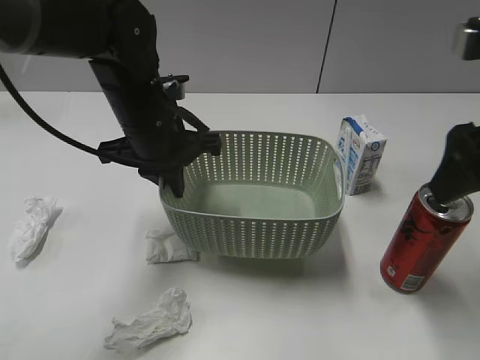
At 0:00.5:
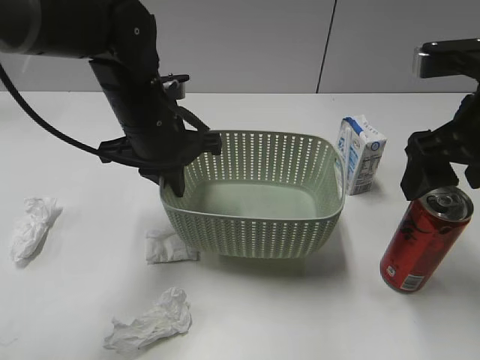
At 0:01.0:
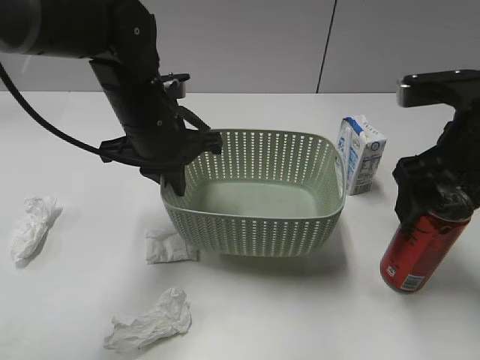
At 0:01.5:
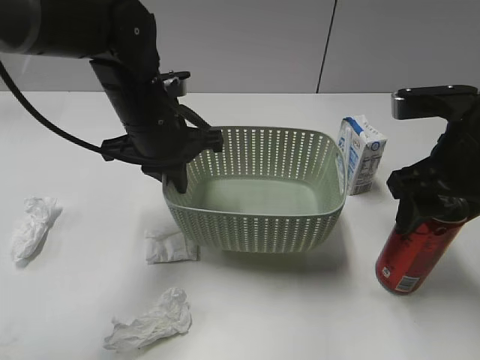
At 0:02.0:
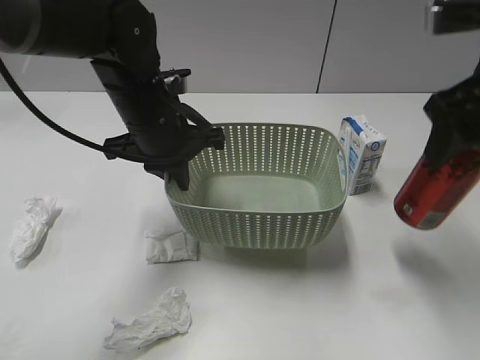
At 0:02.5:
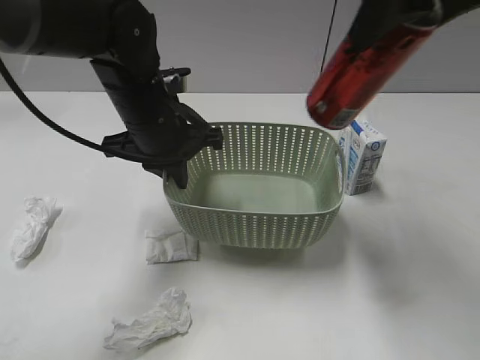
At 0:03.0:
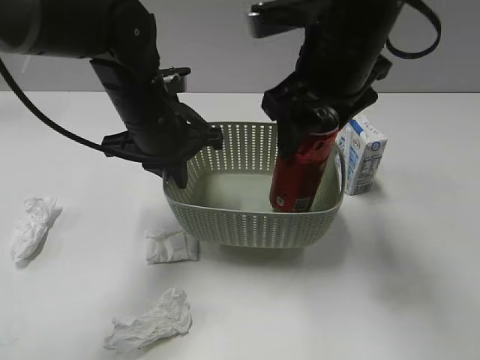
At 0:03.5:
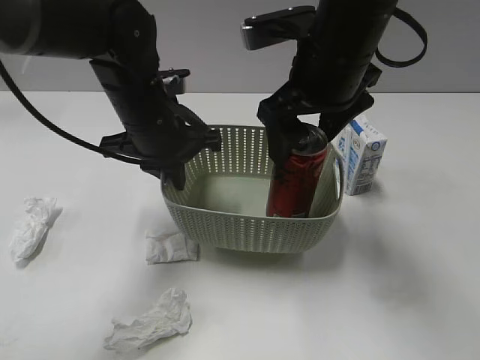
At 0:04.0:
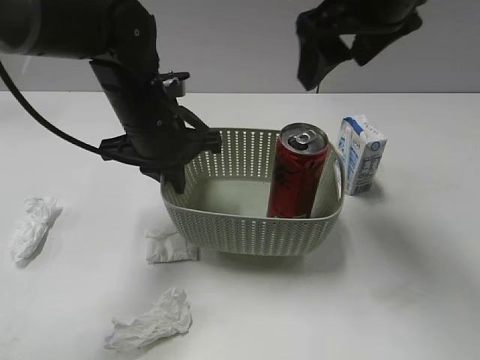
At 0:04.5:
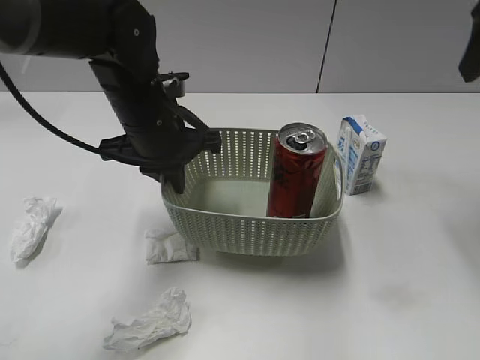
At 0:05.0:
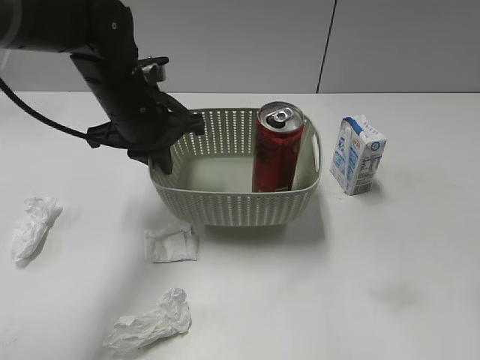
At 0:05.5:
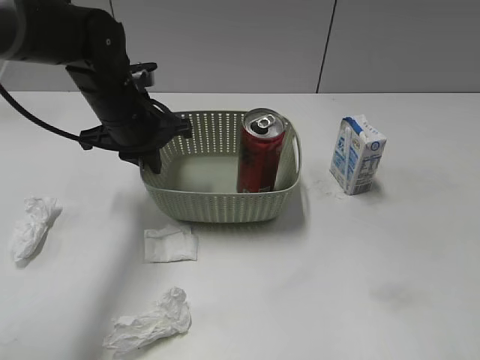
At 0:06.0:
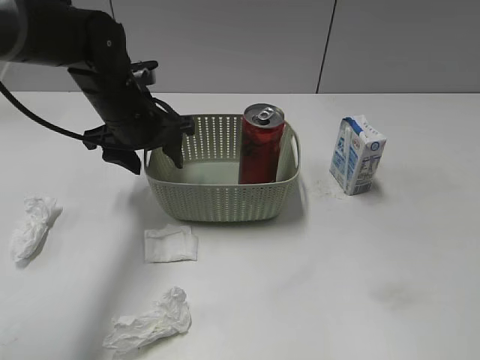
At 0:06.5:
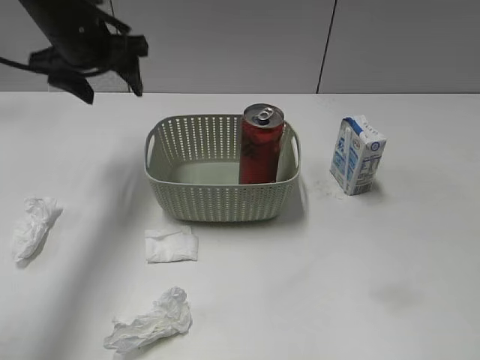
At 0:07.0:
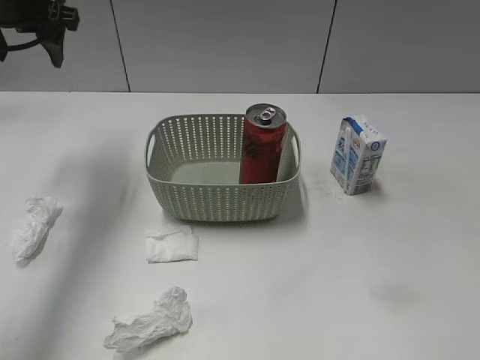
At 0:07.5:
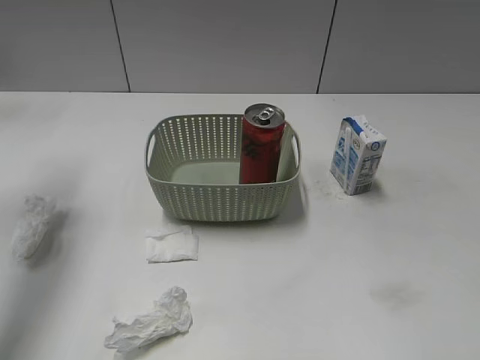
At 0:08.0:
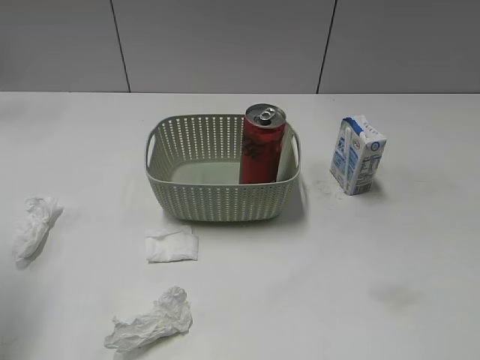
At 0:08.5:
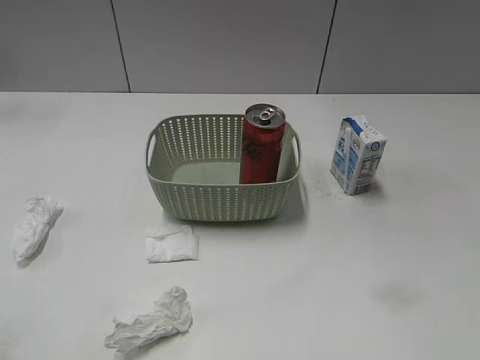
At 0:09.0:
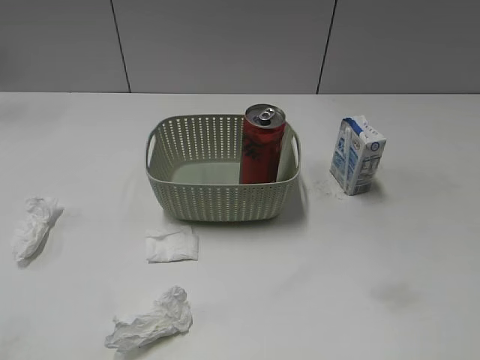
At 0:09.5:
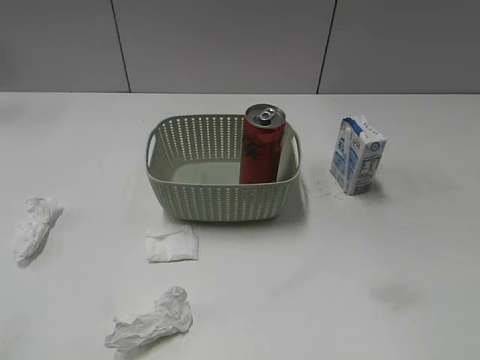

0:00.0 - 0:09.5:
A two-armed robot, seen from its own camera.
Step, 0:00.0 - 0:01.5: Grasp the cola can with right gripper.
Step, 0:02.0 - 0:03.5: Place the cola can in the basket with right gripper.
0:00.0 - 0:02.0: The right gripper goes downward and returns, roughly 5 cm each way, and closes its fingers.
0:02.0 - 0:04.0: The right gripper goes approximately 10 cm to the left and forward, and opens its fingers.
0:04.0 - 0:05.5: The left gripper shifts by roughly 5 cm; the right gripper shifts roughly 30 cm backward and to the right, and closes.
0:05.5 - 0:07.5: The left gripper moves to the left and upward, approximately 20 cm, and opens. Meanwhile the right gripper heads backward, covering some 5 cm.
0:07.5 - 0:09.5: The left gripper travels backward by approximately 35 cm.

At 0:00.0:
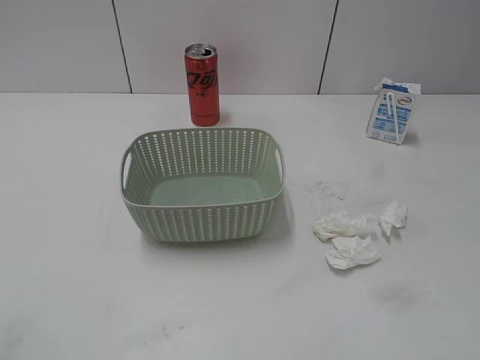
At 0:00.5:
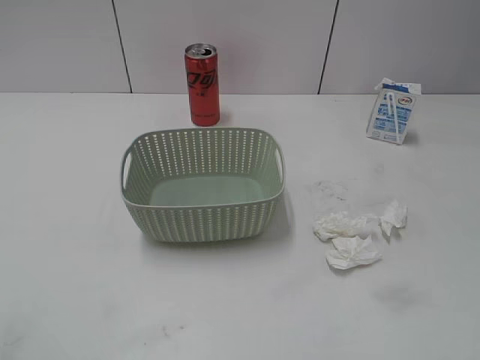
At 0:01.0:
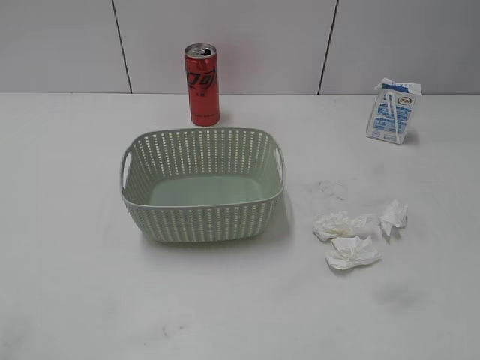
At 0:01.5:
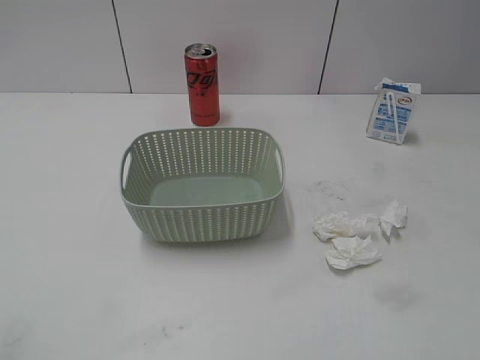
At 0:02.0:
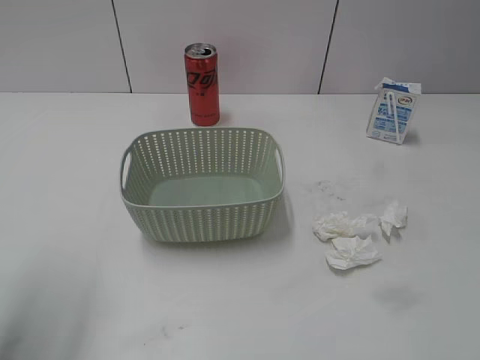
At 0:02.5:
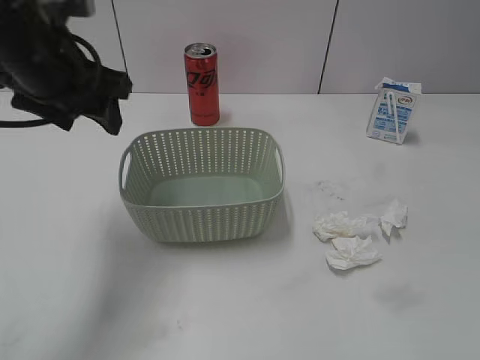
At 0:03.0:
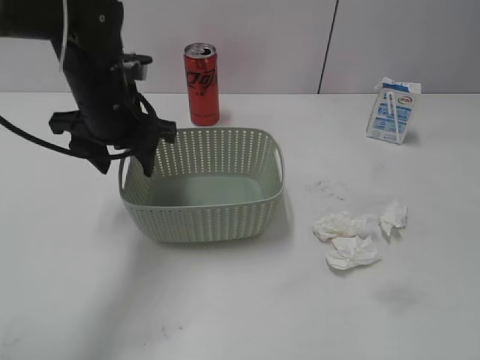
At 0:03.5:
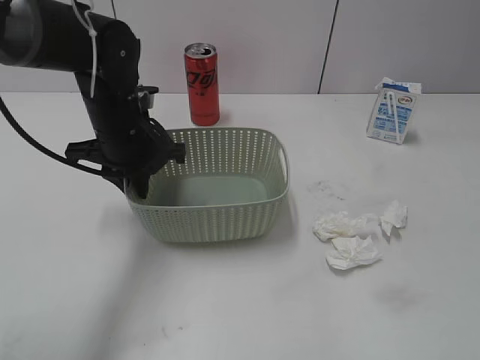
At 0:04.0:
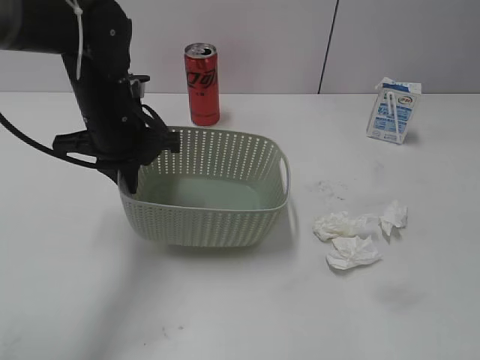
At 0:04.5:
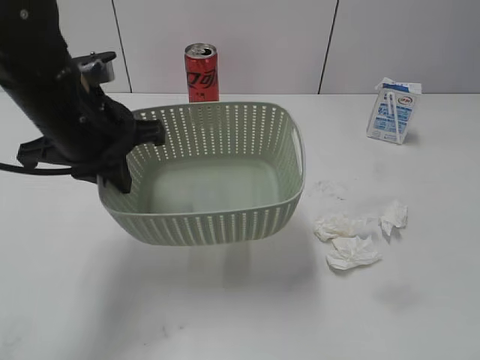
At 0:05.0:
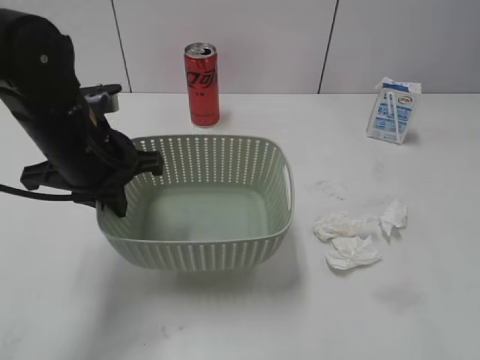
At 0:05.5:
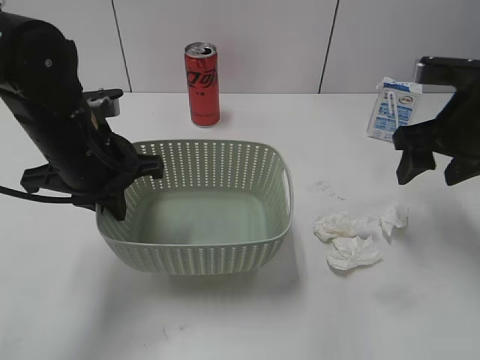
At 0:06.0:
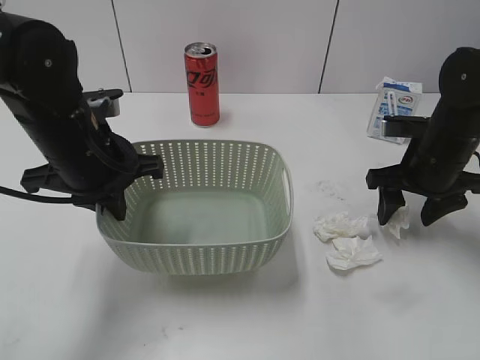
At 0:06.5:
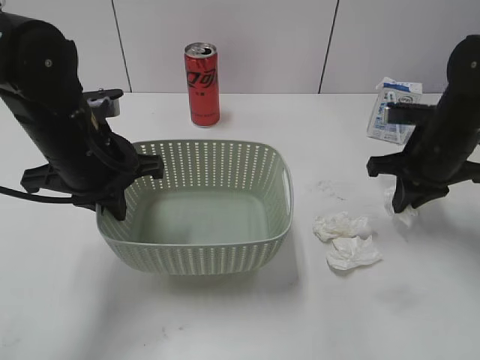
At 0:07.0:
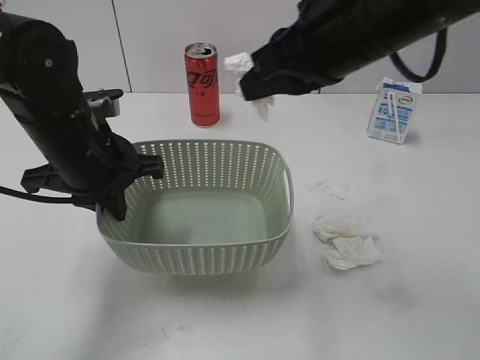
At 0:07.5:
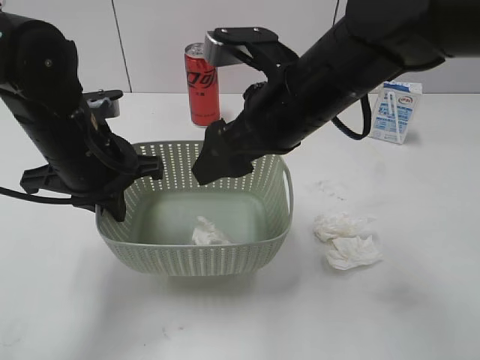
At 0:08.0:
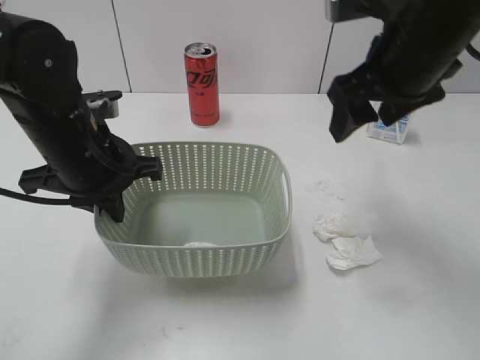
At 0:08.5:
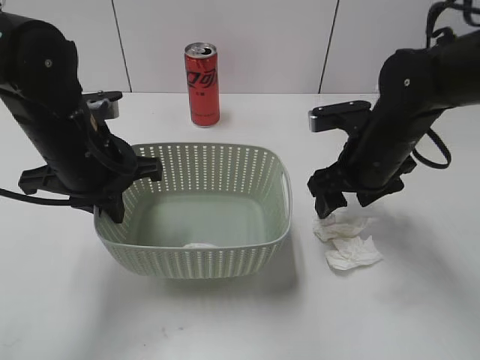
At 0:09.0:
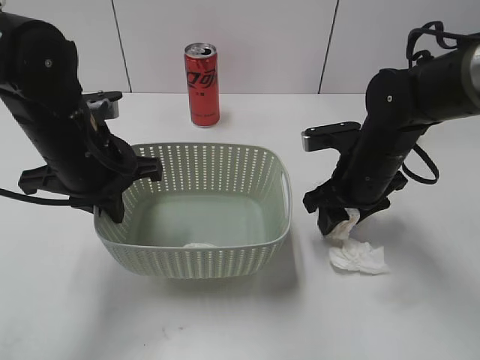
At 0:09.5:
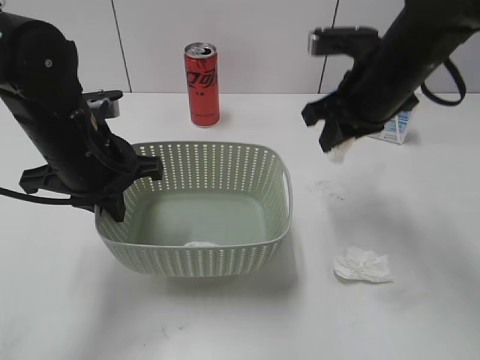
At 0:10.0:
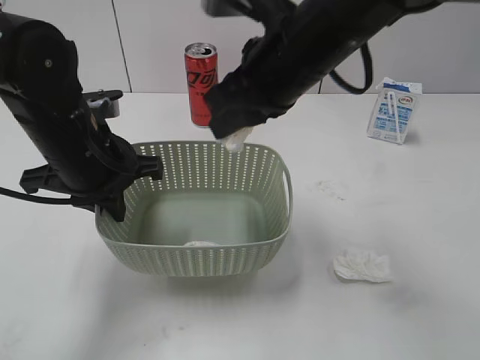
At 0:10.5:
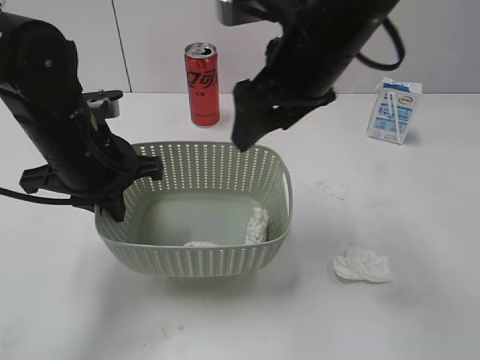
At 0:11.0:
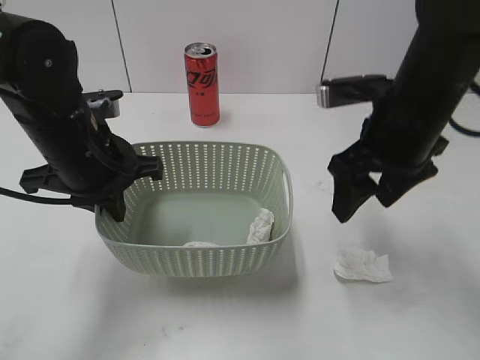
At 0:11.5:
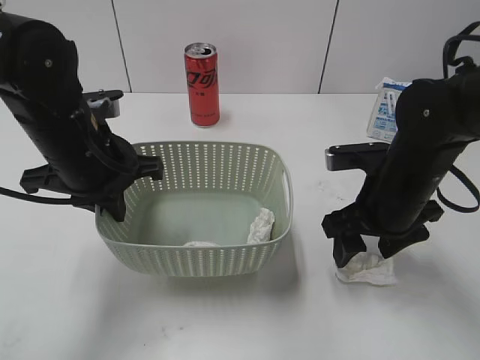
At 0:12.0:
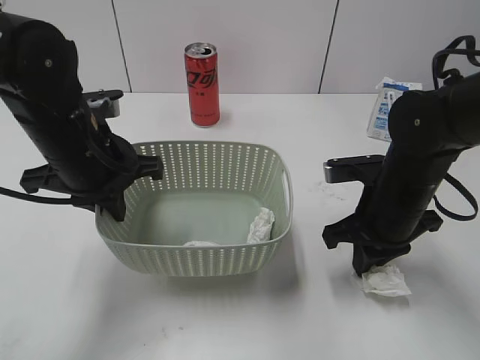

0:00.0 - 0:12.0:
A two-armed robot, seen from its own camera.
Step, 0:02.5 - 0:04.0: Grasp the basket with left gripper.
Step, 0:05.0 - 0:06.5: Grasp the waste paper with right gripper.
Step, 0:07.0 - 0:07.5: Place the waste paper in the basket with right gripper.
Step, 0:08.0 - 0:09.0: Grasp the waste paper with right gripper.
Step, 0:09.5 - 0:10.0: Place the waste paper in the basket with right gripper.
0:02.0 - 0:04.0: The left gripper moves forward, to the right and downward, some 25 cm, and closes its fingers.
0:04.0 - 0:06.0: The right gripper goes roughly 40 cm forward and downward. Meanwhile the left gripper shifts about 5 cm backward.
0:06.0 - 0:08.0: The right gripper shifts about 20 cm upward and to the left, and closes, then opens again.
0:08.0 - 0:10.0: The right gripper is displaced to the left by about 10 cm, travels downward and back again, roughly 15 cm each way, and closes up.
0:10.0 - 0:12.0: The right gripper is displaced downward and to the right by roughly 20 cm, and opens and closes again.

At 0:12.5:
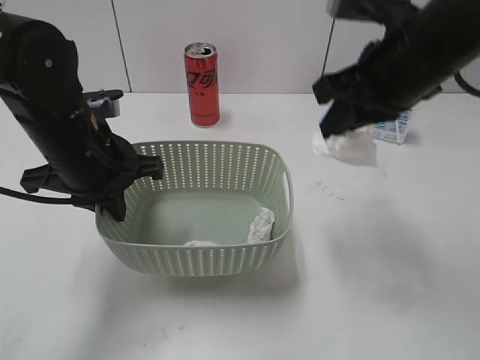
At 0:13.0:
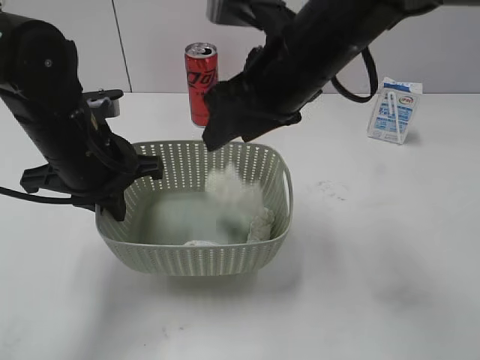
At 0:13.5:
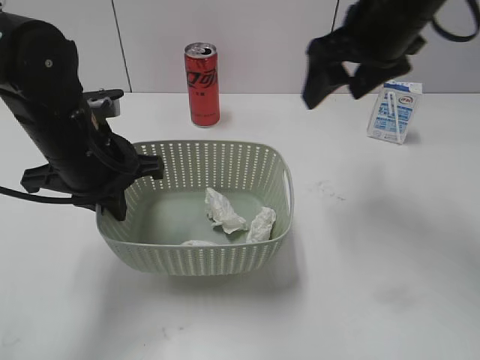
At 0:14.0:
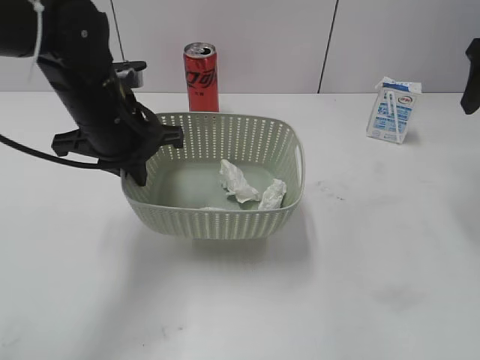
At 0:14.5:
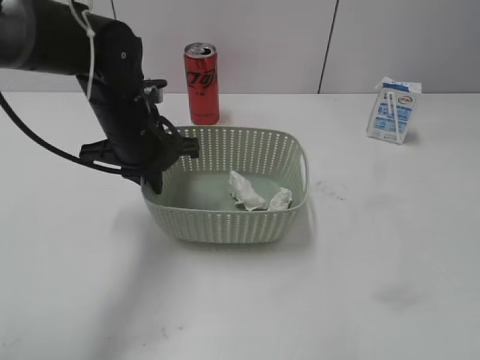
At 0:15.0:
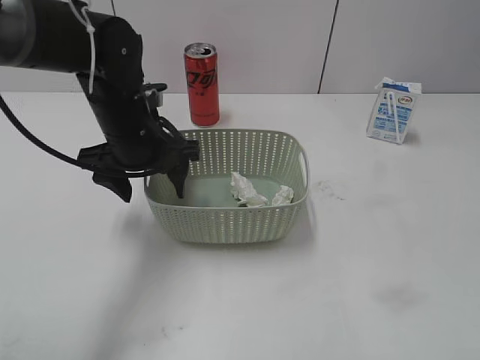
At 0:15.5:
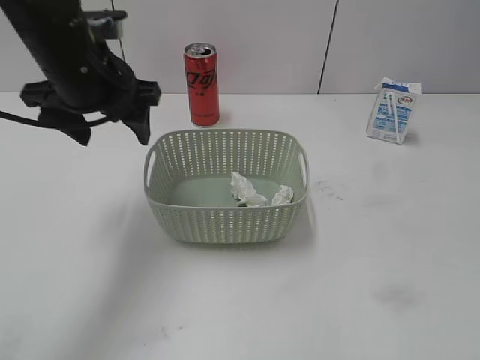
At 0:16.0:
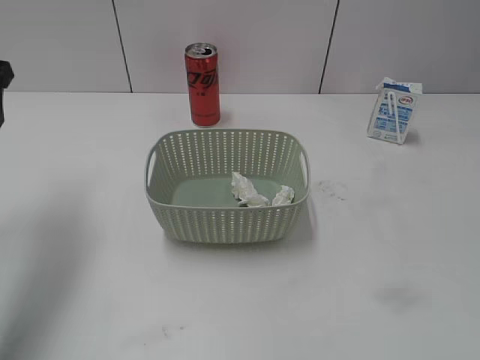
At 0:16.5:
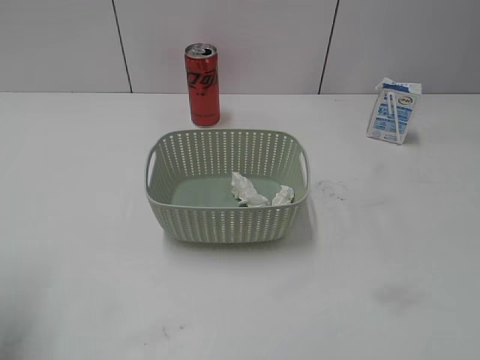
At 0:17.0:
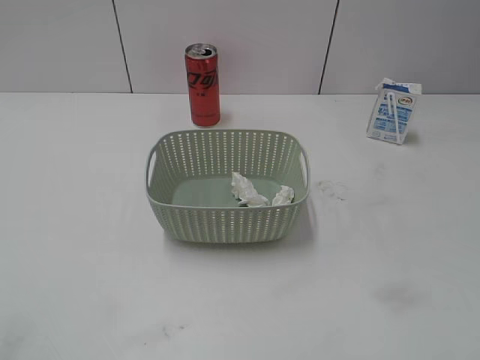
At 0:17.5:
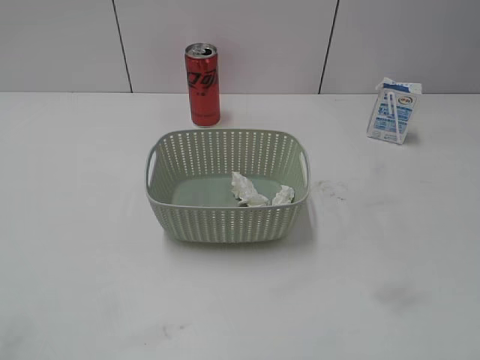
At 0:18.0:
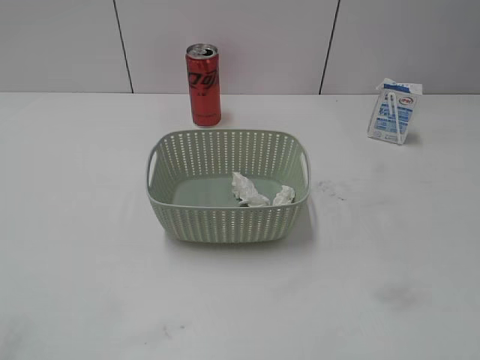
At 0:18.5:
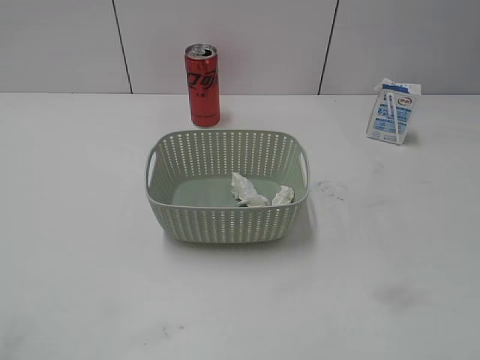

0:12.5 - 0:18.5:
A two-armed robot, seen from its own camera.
Step, 0:12.5 - 0:13.0: Place the waste paper in the basket with right gripper.
Step, 0:13.5 - 0:15.0: Place the basket on the table with left gripper.
0:12.5 - 0:14.5: The left gripper is displaced forward by about 5 cm. Meanwhile the right gripper shifts approximately 20 cm to the right, backward and upward, and opens its fingers.
0:14.5 - 0:16.5: The left gripper heads to the left, backward and upward, covering about 25 cm, and opens, while the right gripper moves backward, roughly 20 cm.
0:16.5 - 0:18.5: The left gripper shifts some 20 cm backward.
